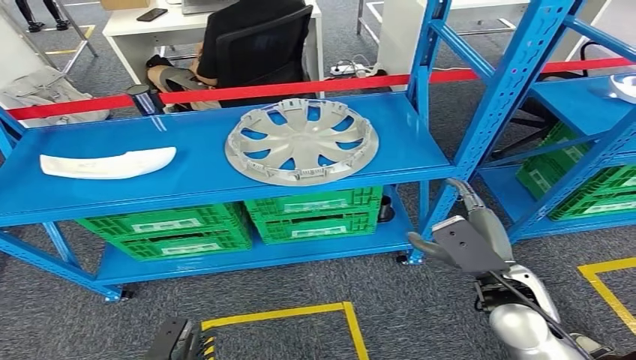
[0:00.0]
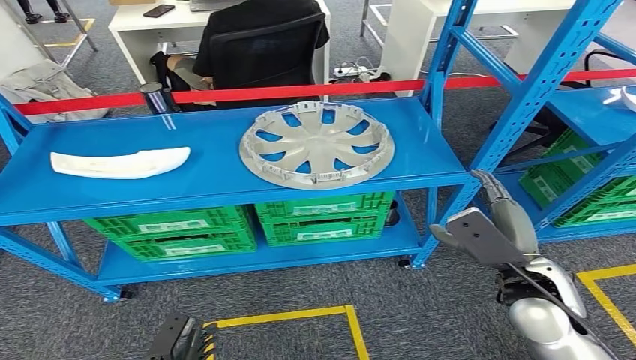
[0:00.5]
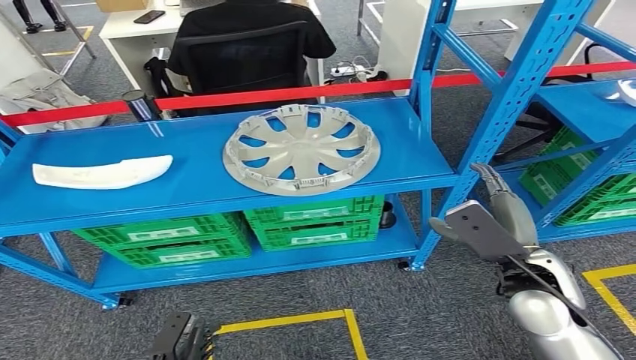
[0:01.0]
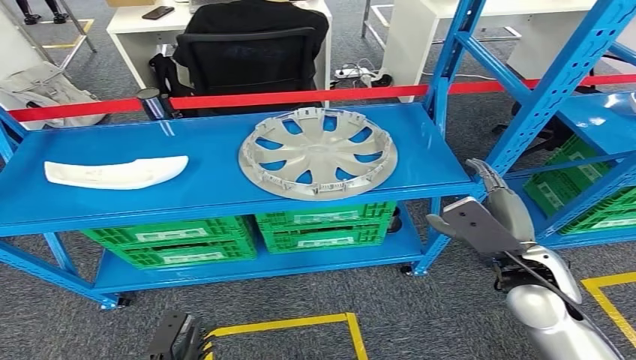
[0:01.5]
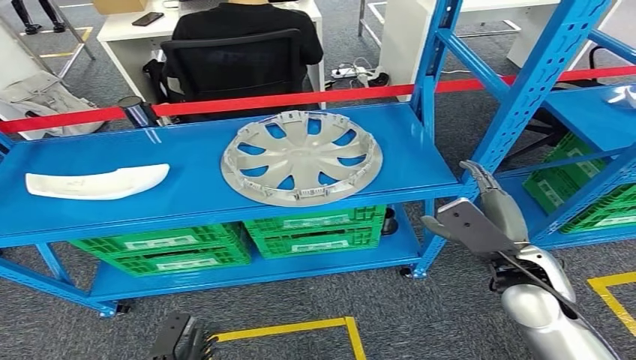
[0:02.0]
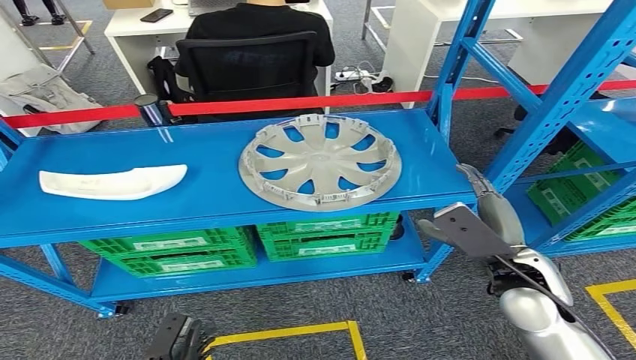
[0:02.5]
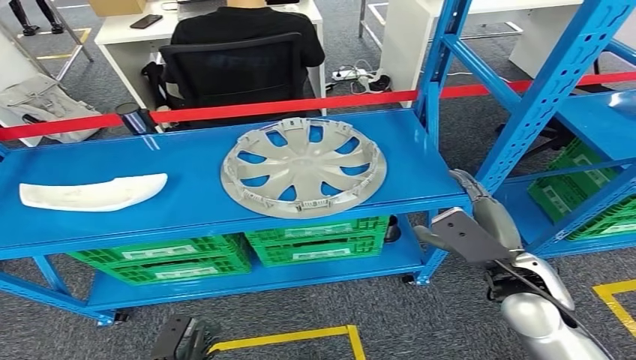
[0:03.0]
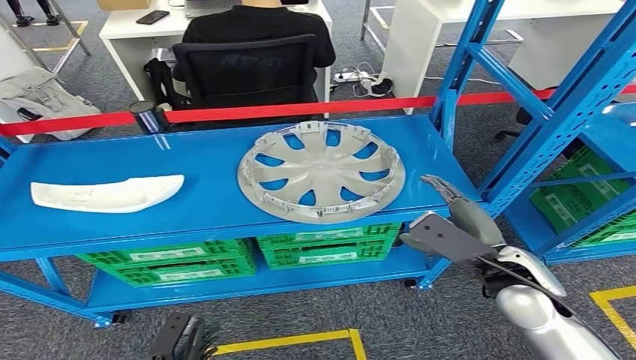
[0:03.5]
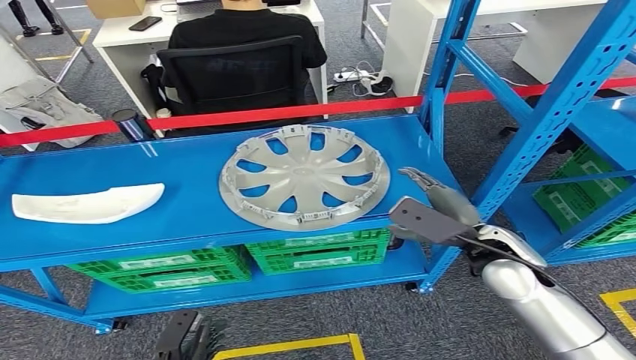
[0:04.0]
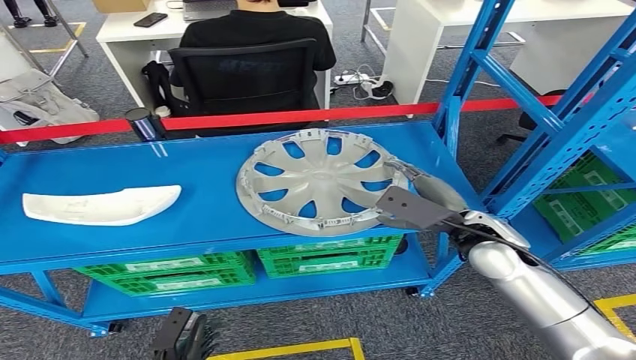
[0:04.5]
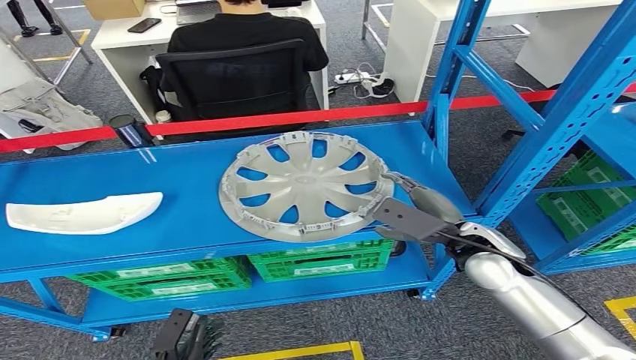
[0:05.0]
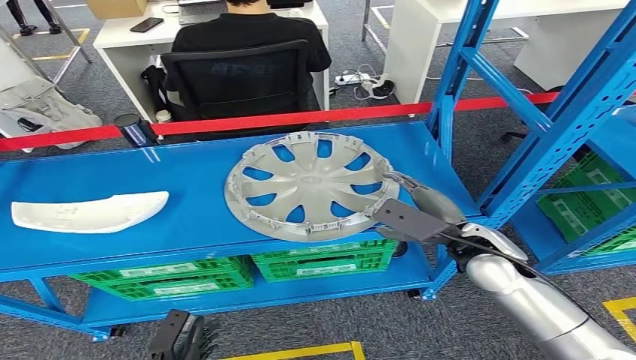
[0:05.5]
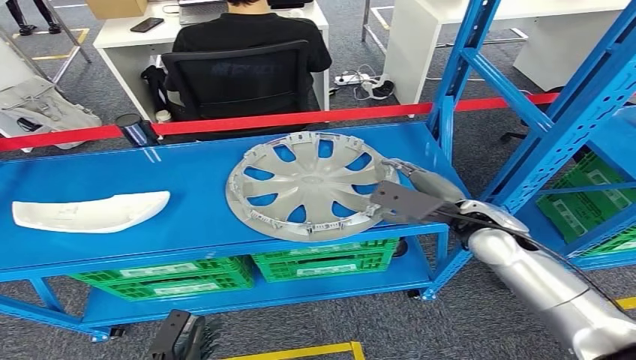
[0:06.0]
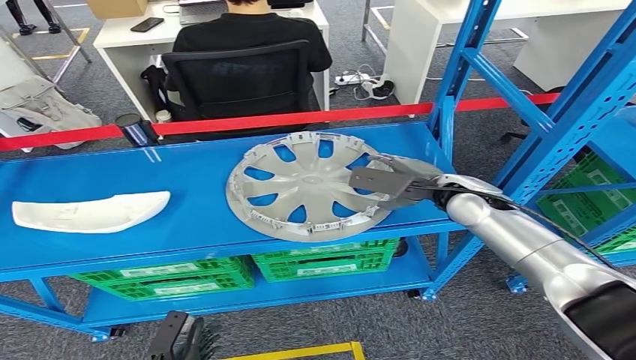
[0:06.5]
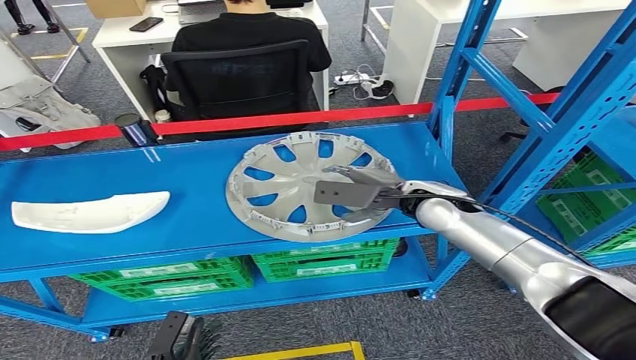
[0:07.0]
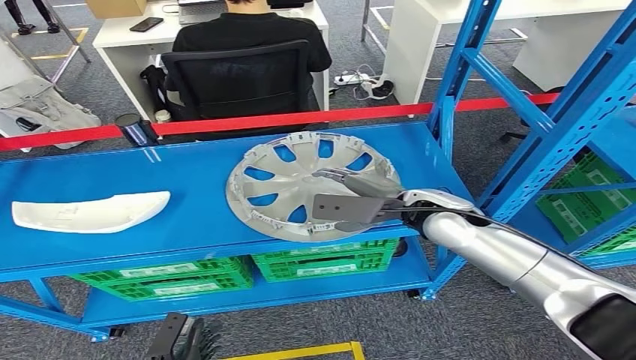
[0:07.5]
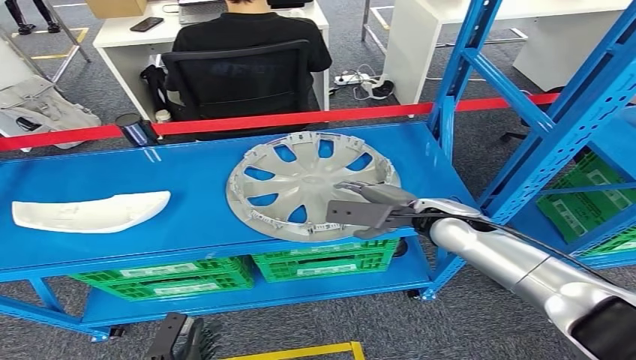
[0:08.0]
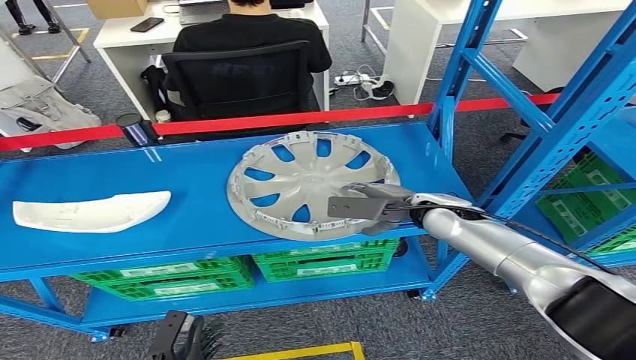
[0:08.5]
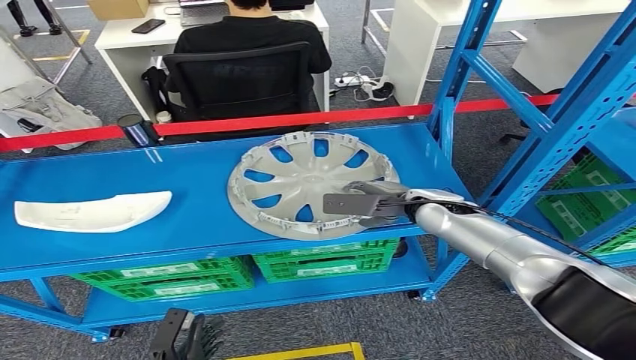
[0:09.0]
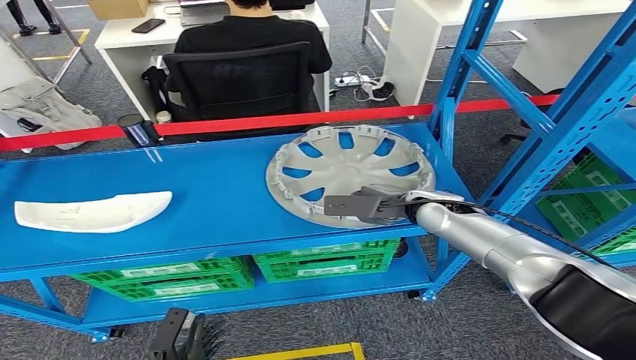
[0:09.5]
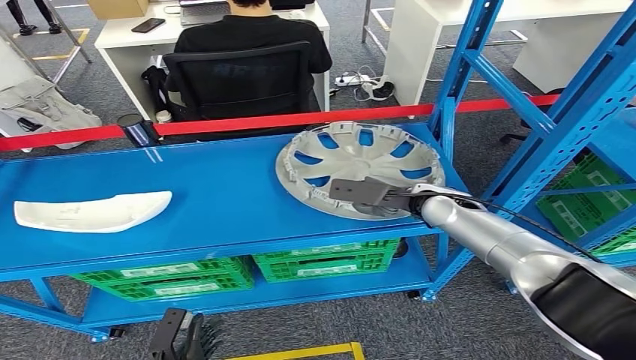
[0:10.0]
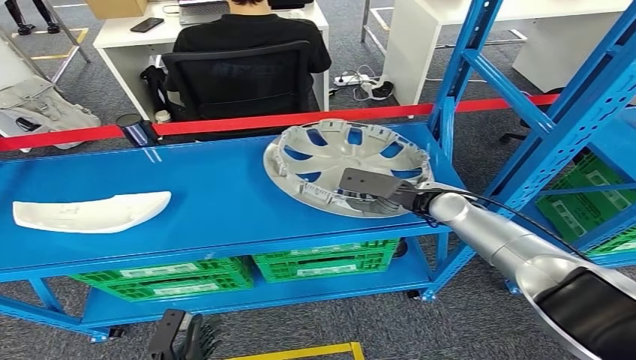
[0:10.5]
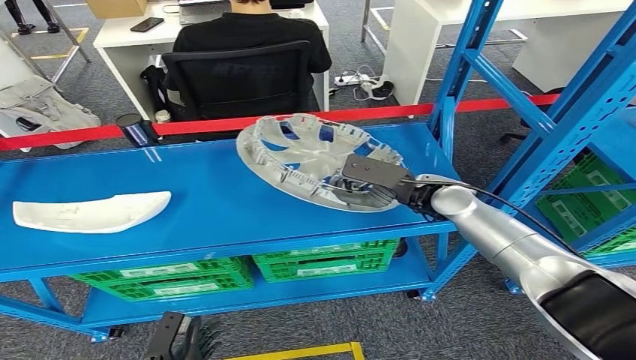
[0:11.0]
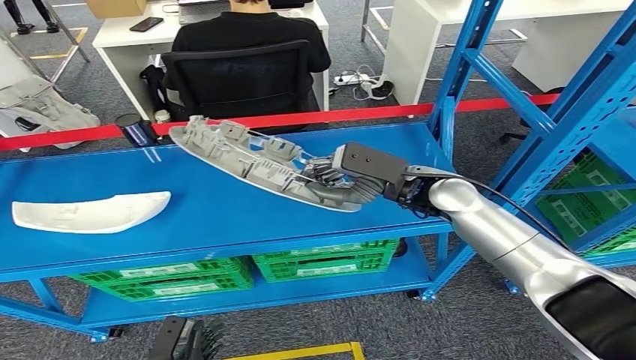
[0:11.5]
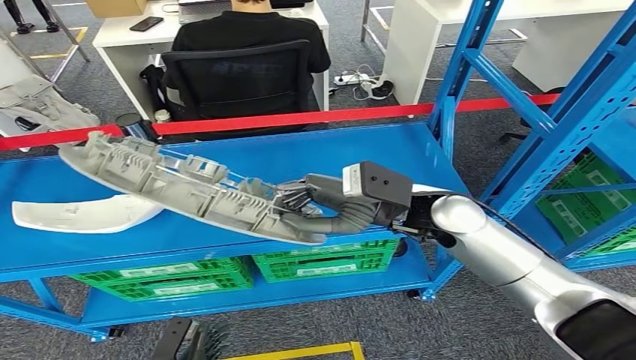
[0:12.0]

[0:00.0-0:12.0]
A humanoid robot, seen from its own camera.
Step, 0.0 to 11.0 s: Pick up the small component from the shelf.
8.0 to 10.0 s: There are only small adjustments of the hands.

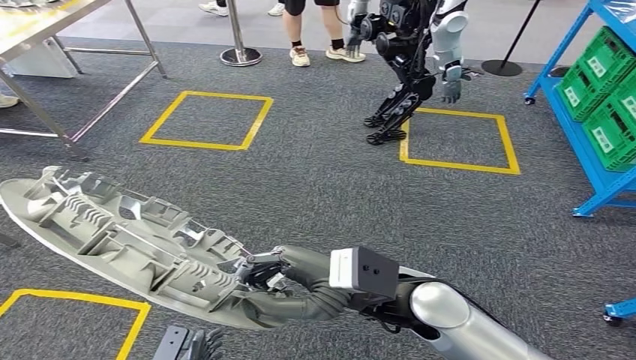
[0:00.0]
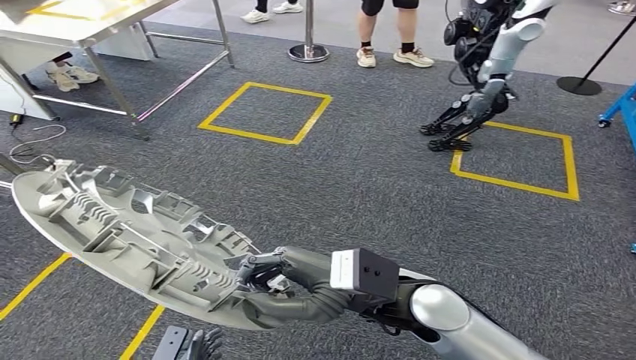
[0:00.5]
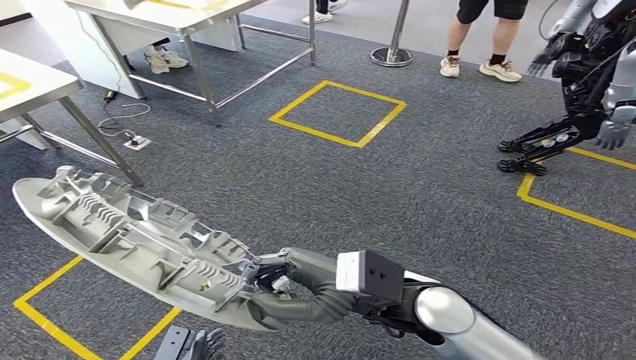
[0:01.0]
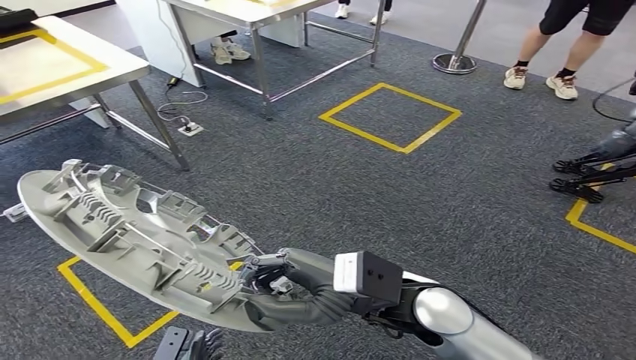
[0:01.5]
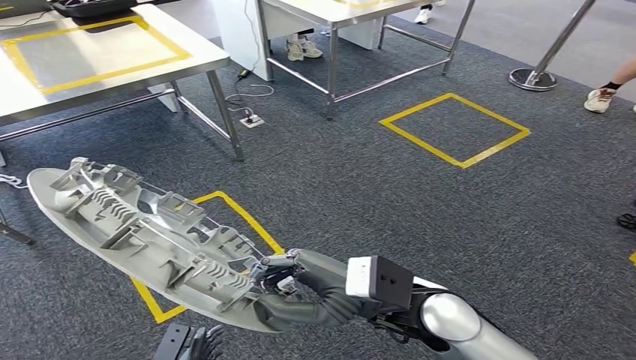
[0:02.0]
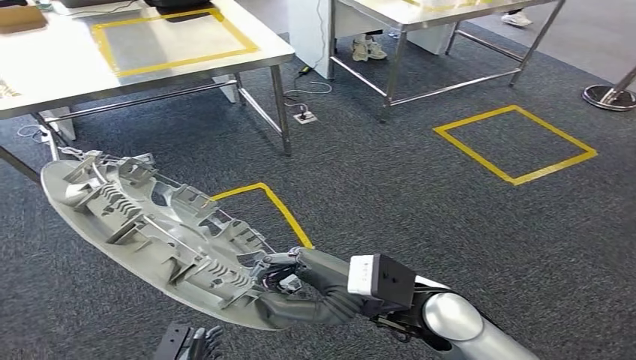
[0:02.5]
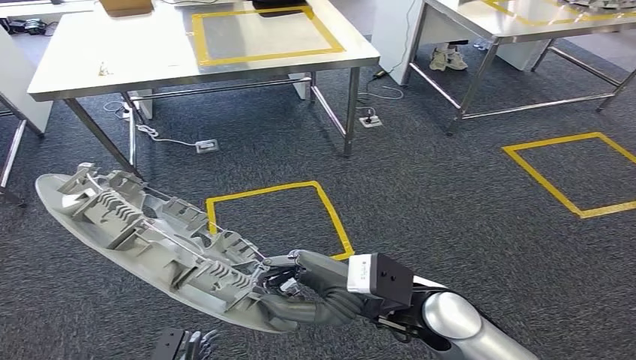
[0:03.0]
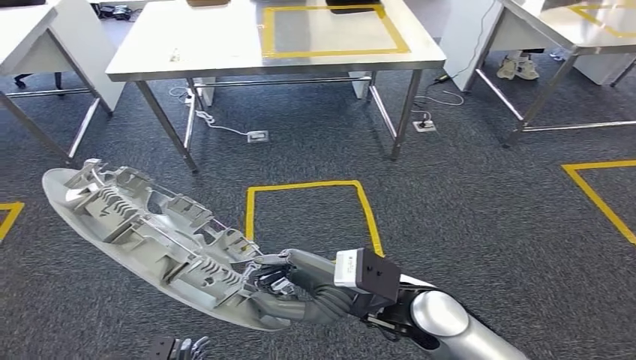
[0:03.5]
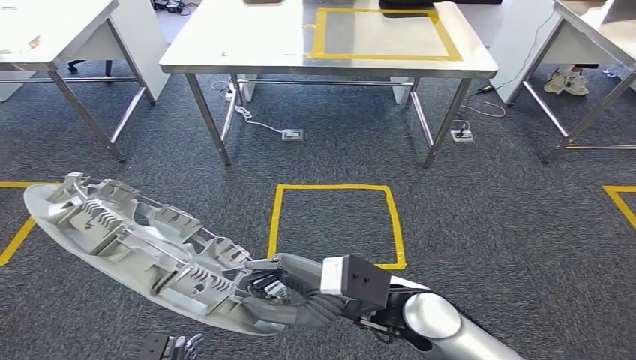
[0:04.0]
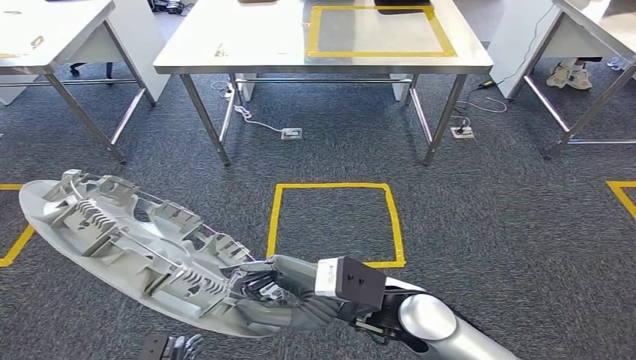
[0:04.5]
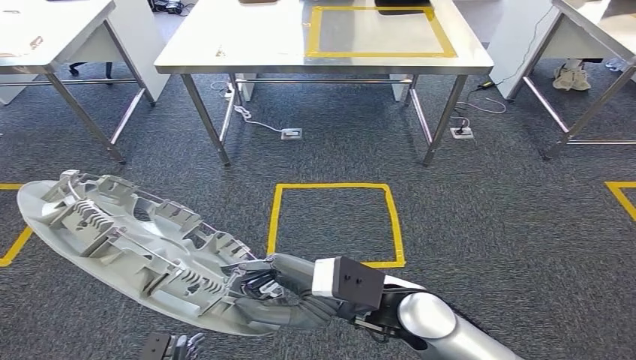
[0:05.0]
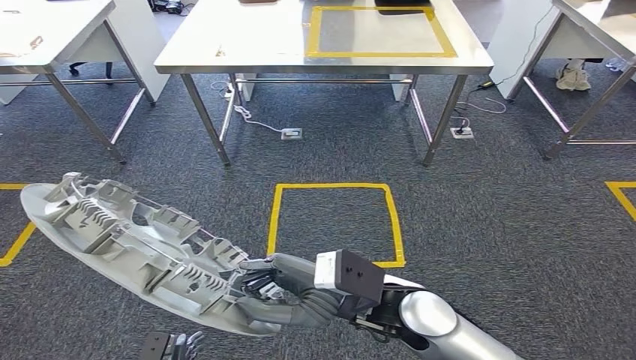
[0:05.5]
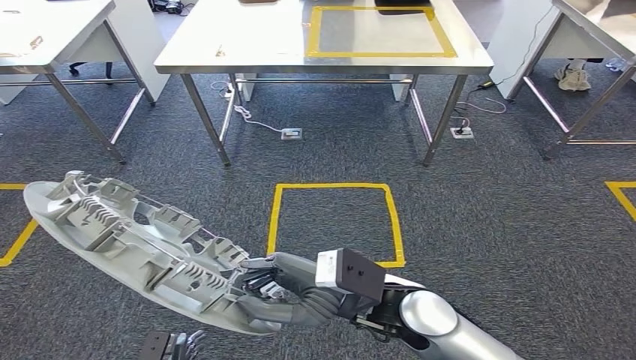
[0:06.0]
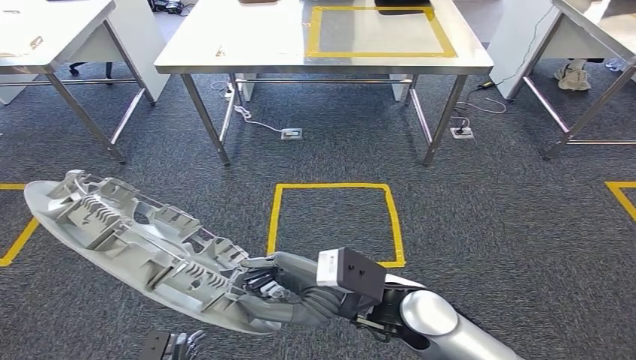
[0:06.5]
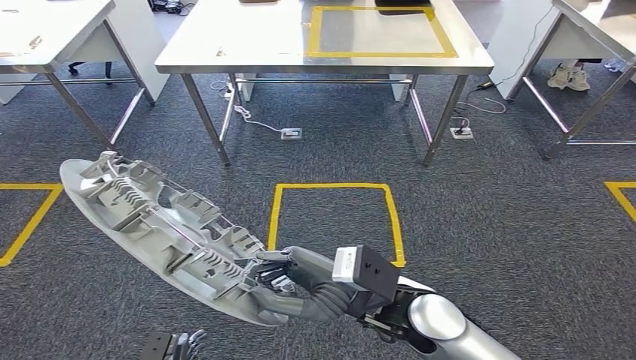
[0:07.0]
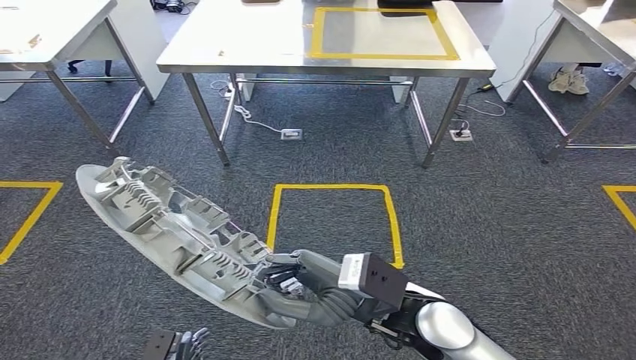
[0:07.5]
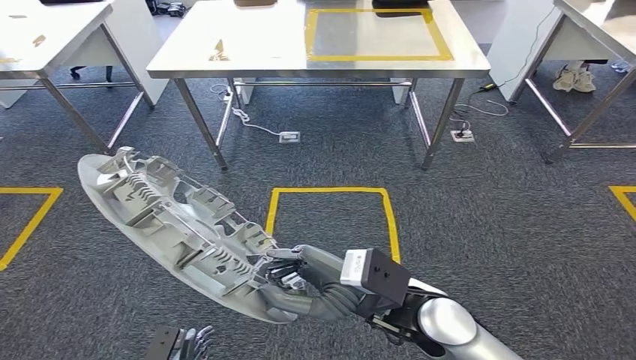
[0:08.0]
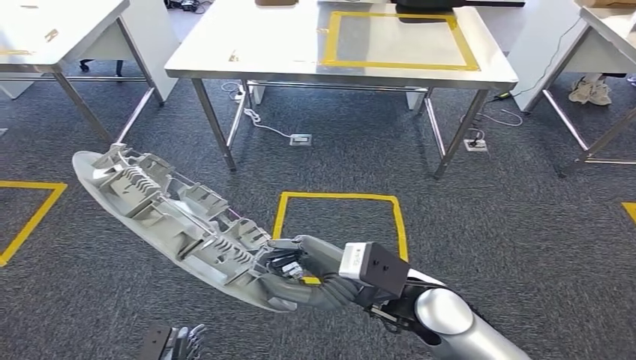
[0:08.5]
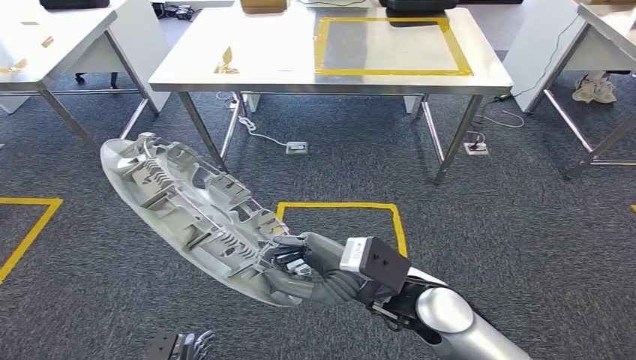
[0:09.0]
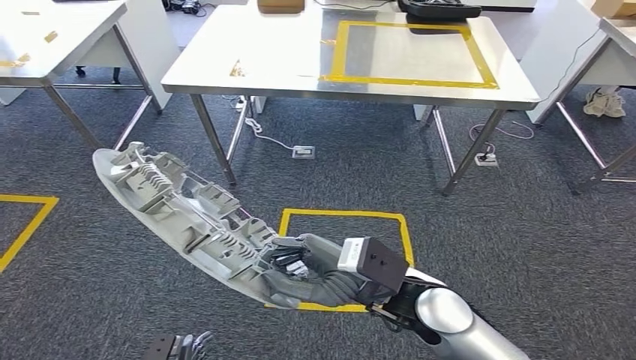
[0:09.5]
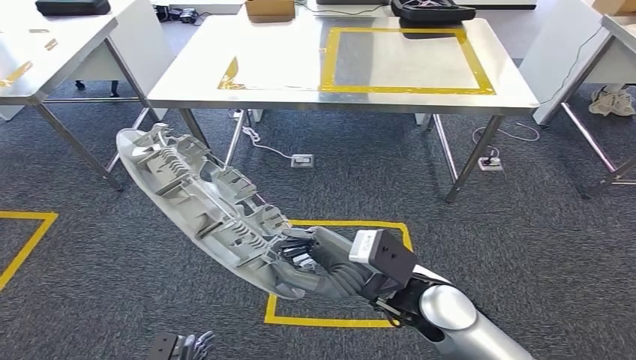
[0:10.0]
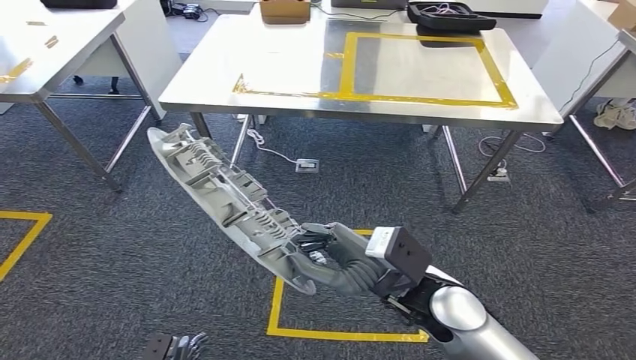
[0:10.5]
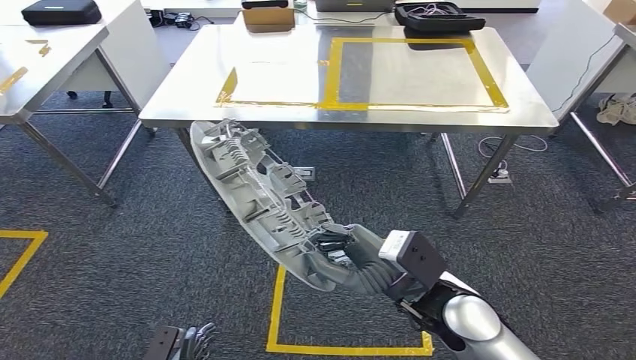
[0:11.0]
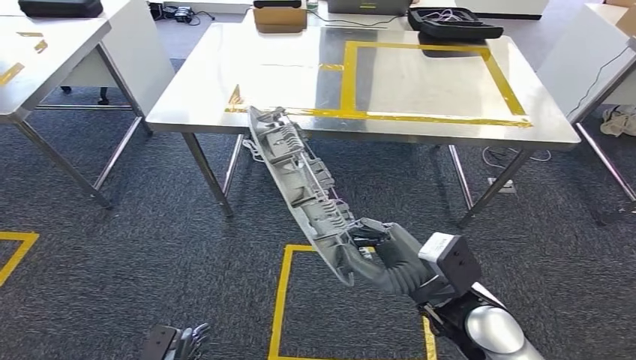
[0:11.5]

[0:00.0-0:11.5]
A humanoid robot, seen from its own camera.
4.0 to 6.0 s: Both hands stay about where they are.
6.0 to 7.5 s: The hands move only a little.
